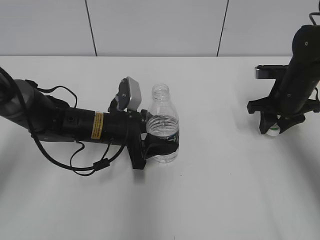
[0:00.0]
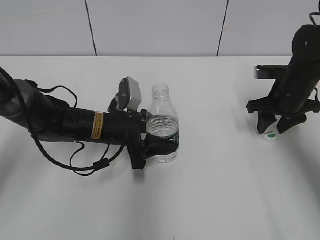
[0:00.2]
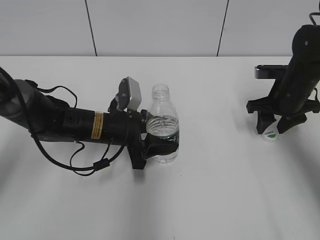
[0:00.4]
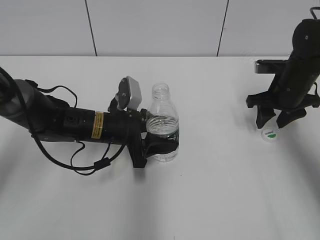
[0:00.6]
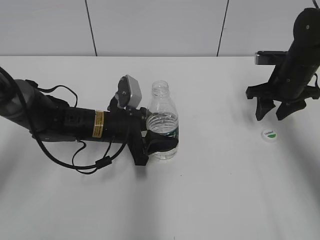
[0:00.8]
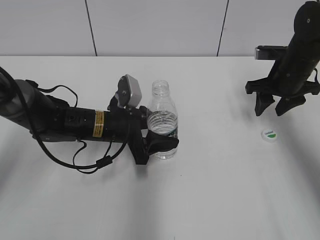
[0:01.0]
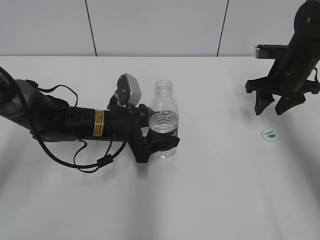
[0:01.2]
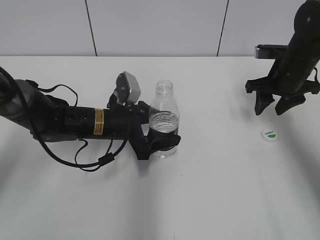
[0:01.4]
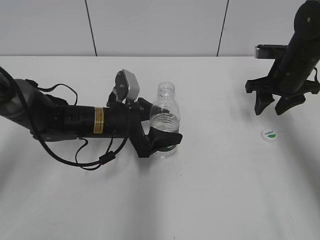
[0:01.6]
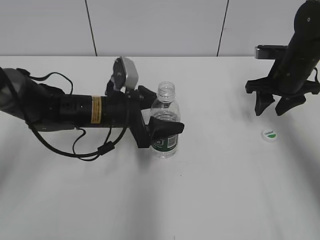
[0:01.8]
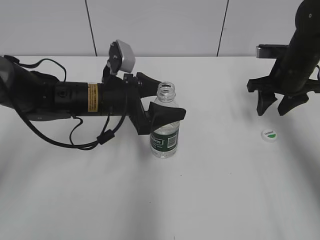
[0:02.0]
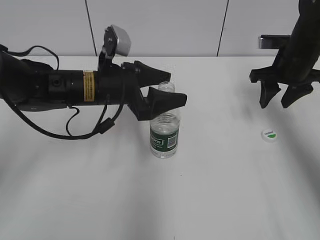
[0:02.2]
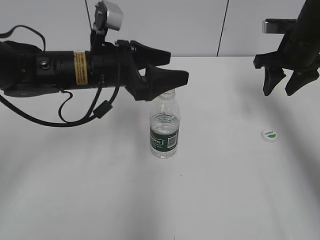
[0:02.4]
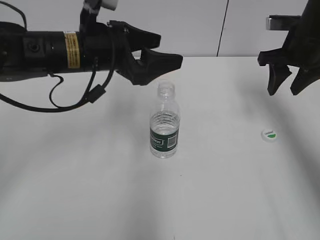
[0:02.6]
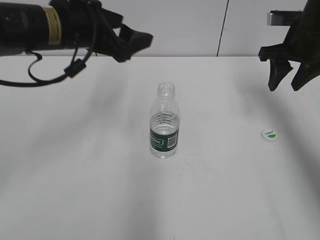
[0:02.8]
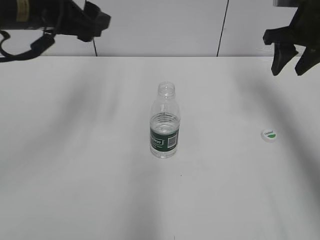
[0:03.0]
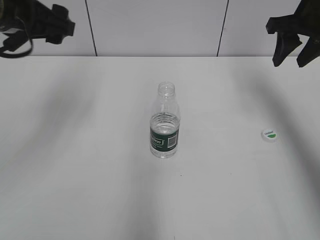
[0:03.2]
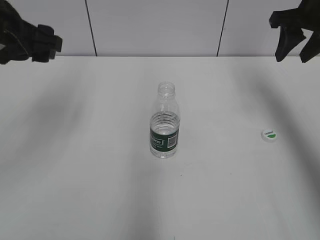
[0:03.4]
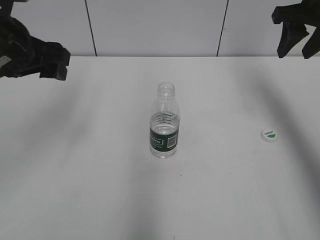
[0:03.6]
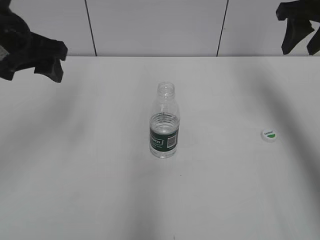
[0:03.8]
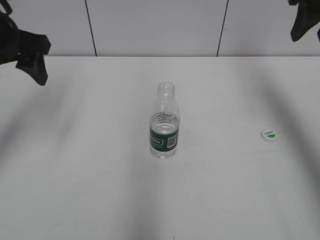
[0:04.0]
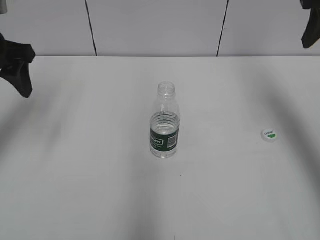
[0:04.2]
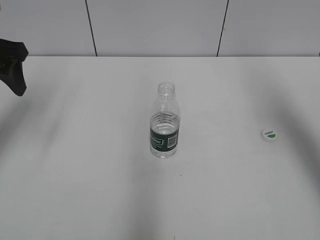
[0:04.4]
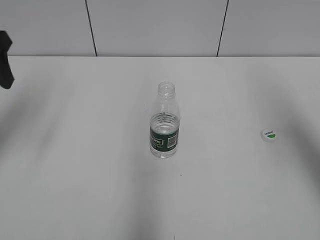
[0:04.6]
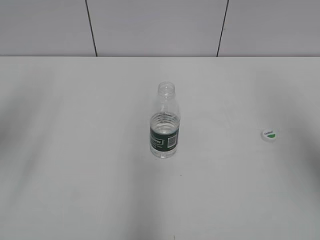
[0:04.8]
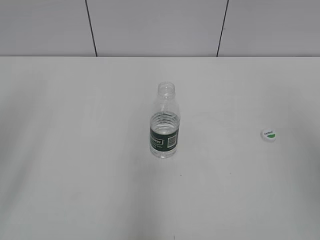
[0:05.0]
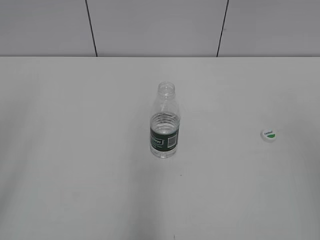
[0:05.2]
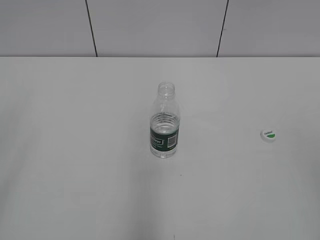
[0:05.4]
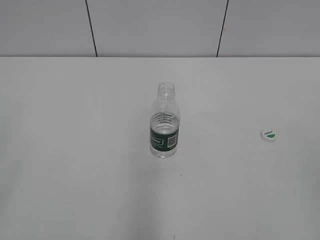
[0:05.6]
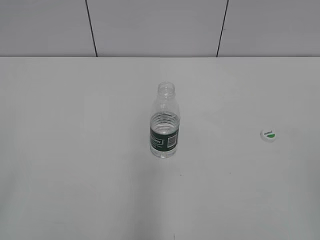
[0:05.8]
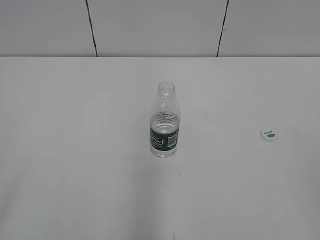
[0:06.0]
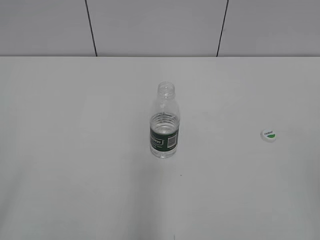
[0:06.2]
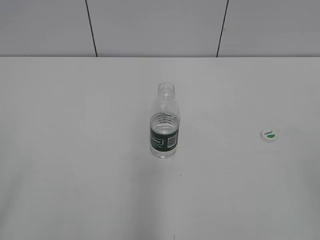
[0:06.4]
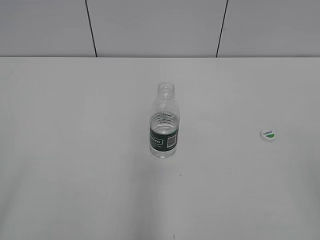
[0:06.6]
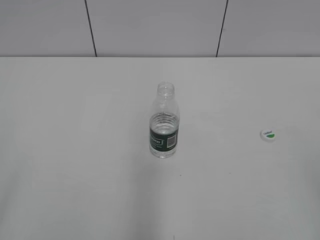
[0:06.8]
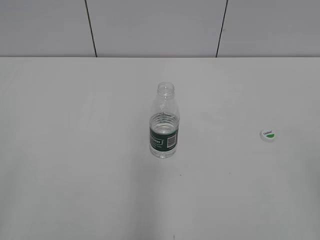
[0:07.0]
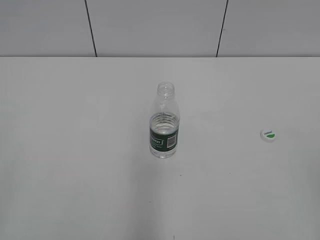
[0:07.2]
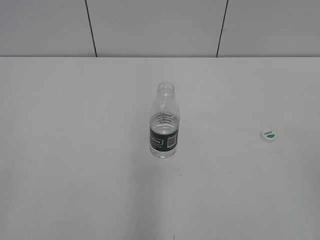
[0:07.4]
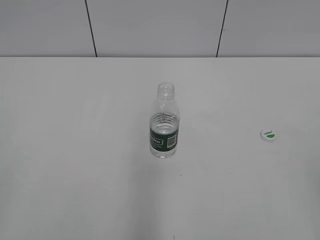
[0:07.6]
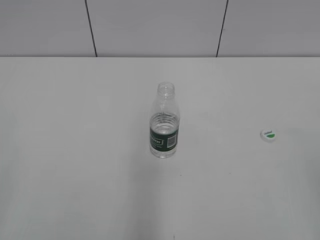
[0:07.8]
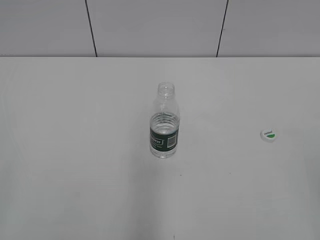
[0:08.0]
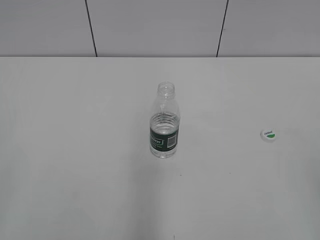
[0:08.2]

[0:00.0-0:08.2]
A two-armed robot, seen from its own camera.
Step, 0:00.8 to 0:02.4: Place the bottle on the table with the left gripper.
0:00.0 to 0:01.6: The right gripper opens, while the left gripper opens up.
0:01.6 to 0:03.2: The left gripper goes approximately 25 cm upward and to the left. The right gripper goes about 15 cm upward.
0:03.2 to 0:05.0: The right gripper moves backward, some 30 cm. Meanwhile the left gripper is displaced backward and to the left by roughly 15 cm.

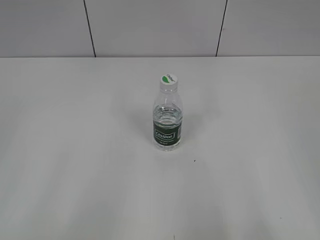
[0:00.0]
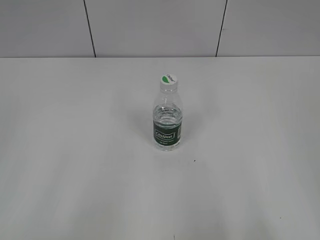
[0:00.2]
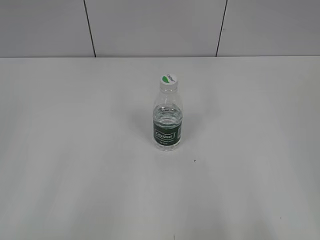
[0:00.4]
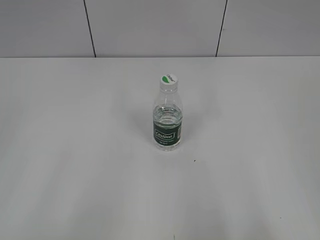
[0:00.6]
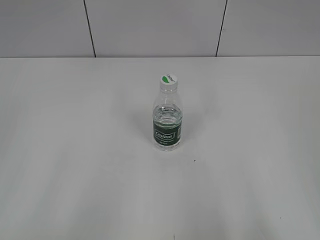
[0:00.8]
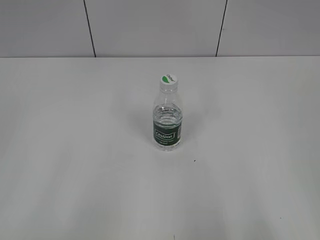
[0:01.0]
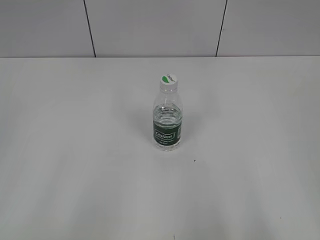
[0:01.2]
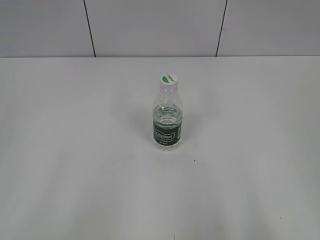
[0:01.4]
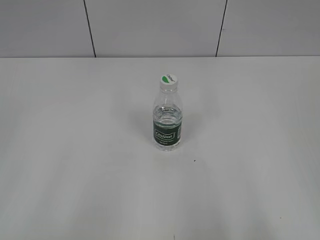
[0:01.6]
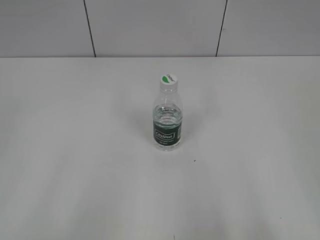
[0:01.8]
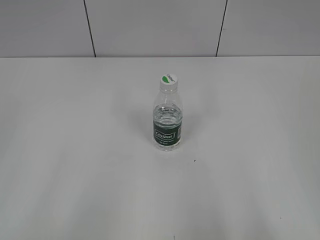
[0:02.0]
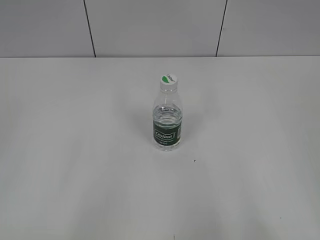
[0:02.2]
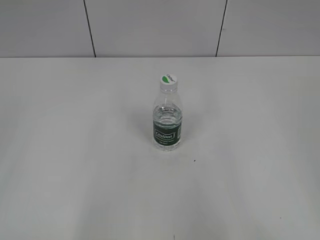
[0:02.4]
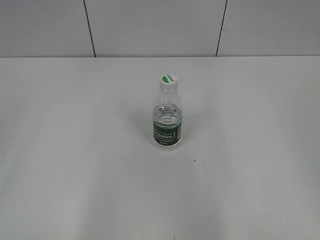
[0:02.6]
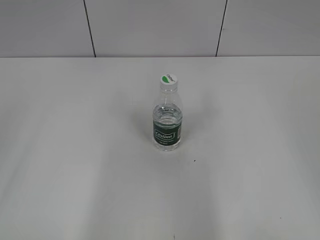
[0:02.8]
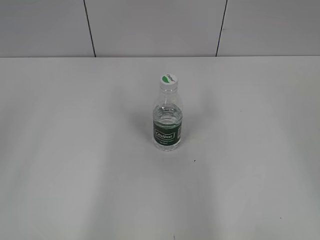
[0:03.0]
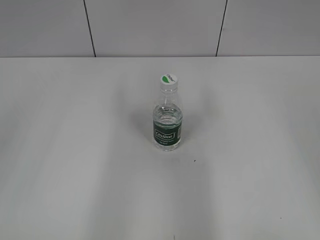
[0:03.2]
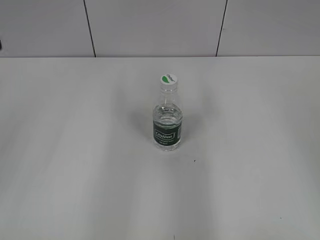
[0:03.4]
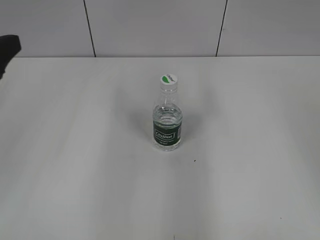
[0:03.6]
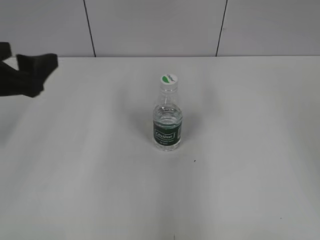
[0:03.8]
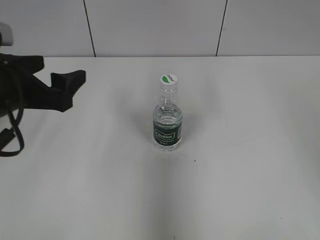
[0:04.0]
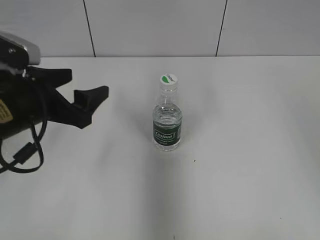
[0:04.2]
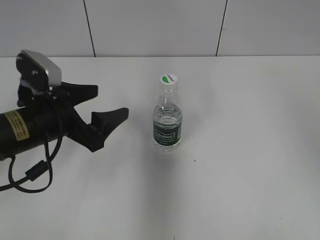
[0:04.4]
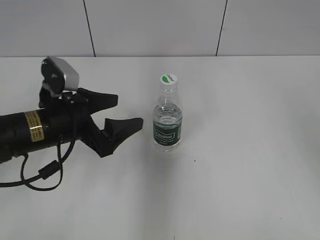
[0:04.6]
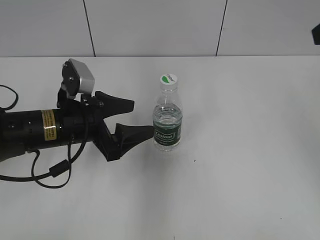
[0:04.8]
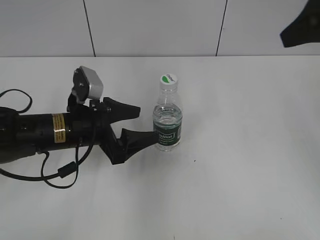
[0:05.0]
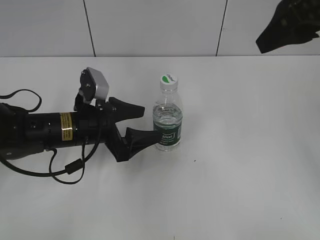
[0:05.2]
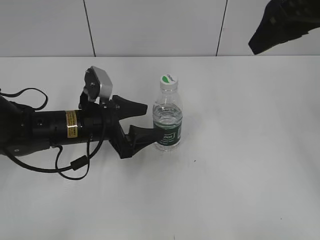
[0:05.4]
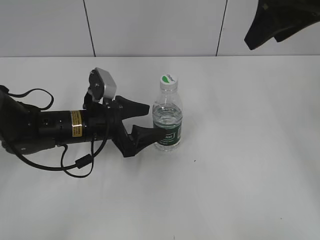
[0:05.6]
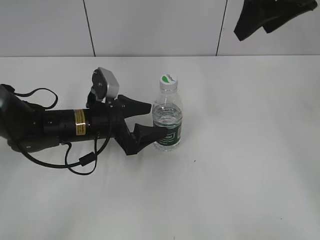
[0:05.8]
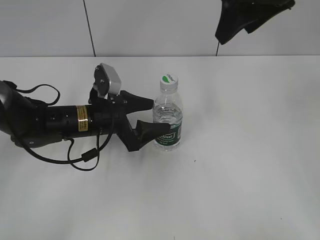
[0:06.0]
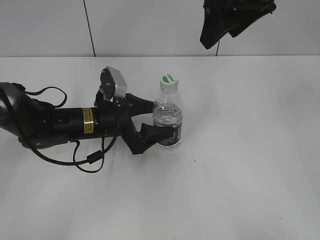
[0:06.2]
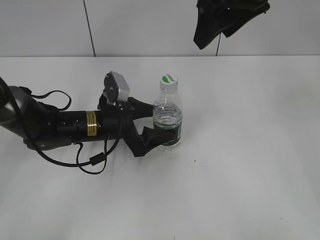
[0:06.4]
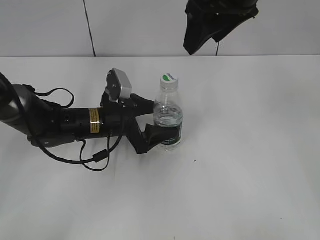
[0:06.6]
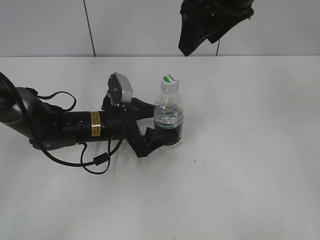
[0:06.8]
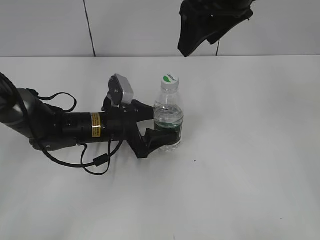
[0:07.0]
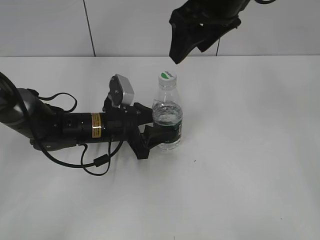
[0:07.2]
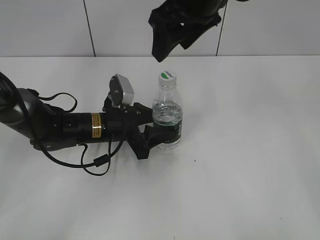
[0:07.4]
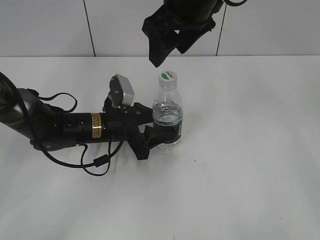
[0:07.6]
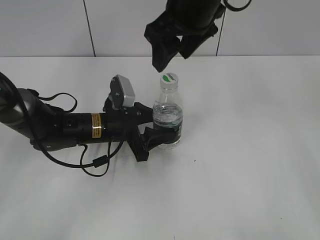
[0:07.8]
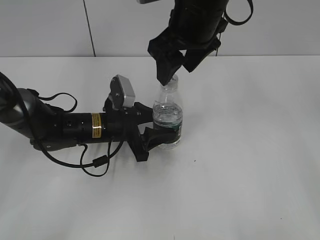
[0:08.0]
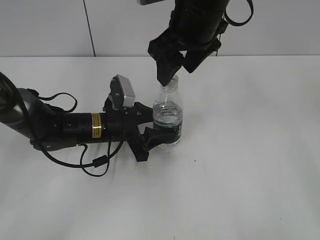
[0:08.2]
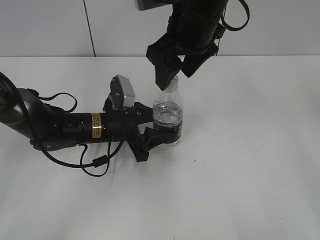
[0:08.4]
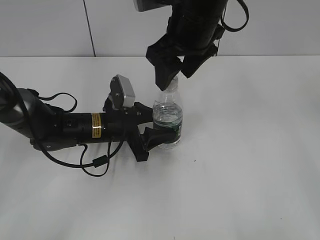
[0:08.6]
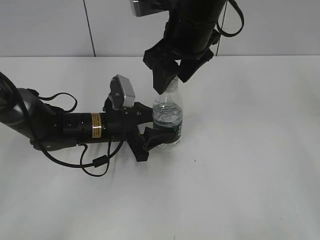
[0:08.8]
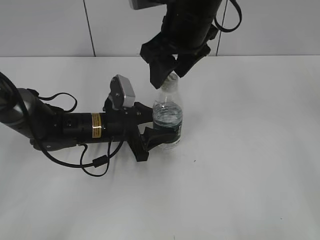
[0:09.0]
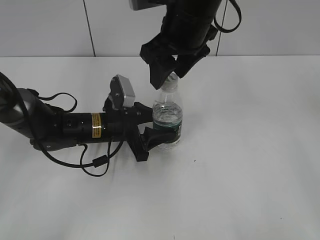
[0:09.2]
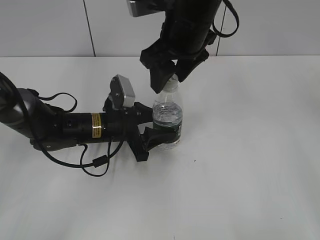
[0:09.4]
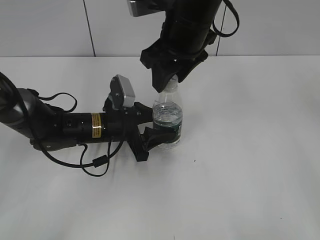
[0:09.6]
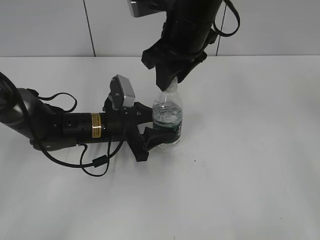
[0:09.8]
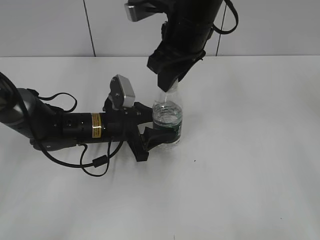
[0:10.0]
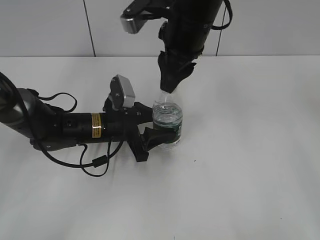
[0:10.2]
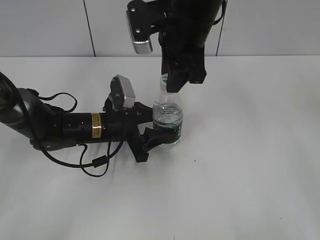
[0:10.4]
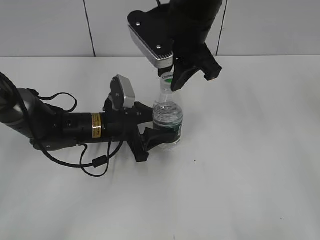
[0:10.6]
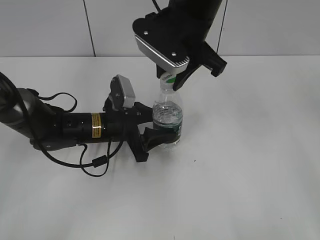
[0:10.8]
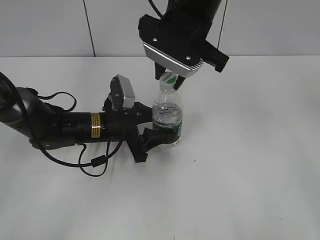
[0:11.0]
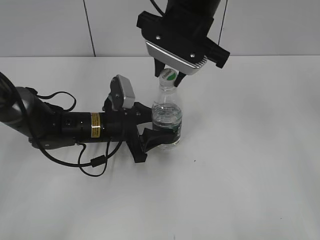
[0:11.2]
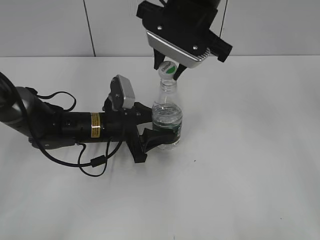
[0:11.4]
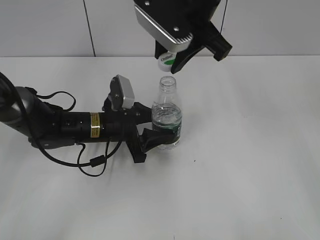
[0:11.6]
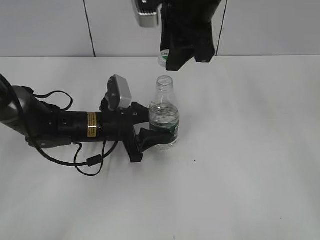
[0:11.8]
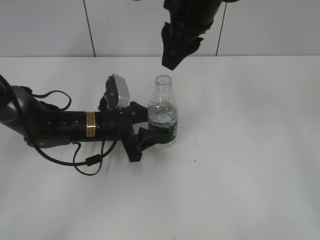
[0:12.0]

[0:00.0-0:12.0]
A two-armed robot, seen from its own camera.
Step, 0:00.0 to 0:07.0: Grasp the bottle and move it to the center of the table with the left gripper.
Step, 0:07.2 to 0:11.4: Unscrew the bottle cap with the right gripper while holding the bottle with the left gripper.
0:03.0 to 0:04.4: The right gripper moves forward, roughly 15 cm. Meanwhile the left gripper is displaced downward, forward and to the right by approximately 25 cm.
0:04.4 to 0:06.0: The right gripper moves to the left and forward, some 20 cm. Meanwhile the left gripper heads forward, downward and to the right, covering about 10 cm.
0:06.0 to 0:07.6: The right gripper travels to the left by approximately 10 cm; the left gripper closes.
0:07.6 to 0:09.0: The grippers make only small movements.
0:09.0 to 0:10.4: The right gripper closes its fingers.

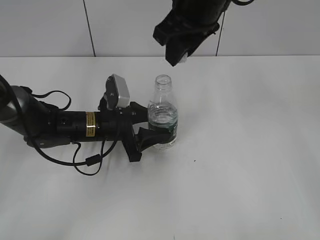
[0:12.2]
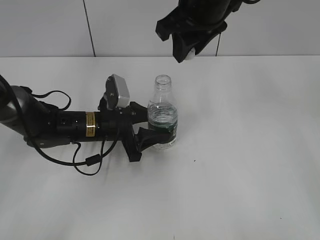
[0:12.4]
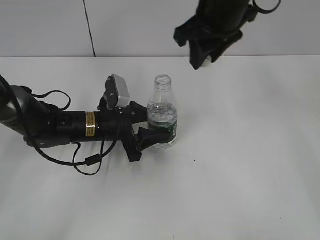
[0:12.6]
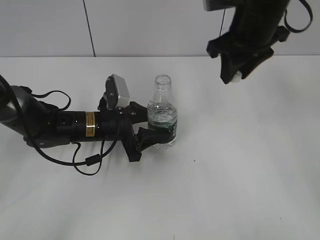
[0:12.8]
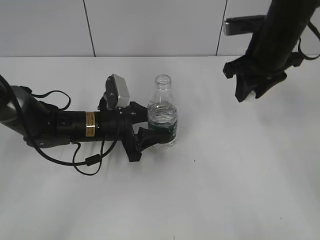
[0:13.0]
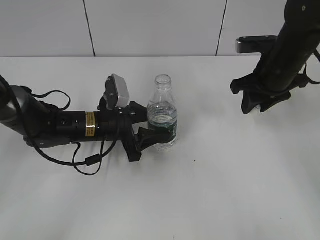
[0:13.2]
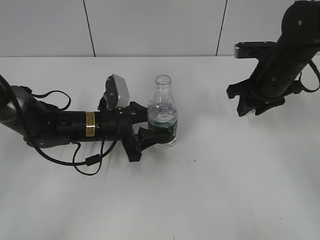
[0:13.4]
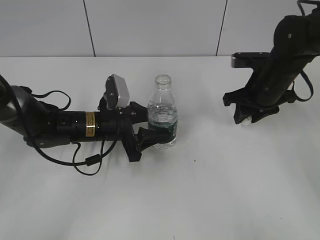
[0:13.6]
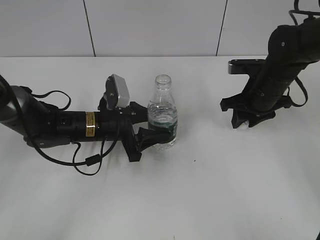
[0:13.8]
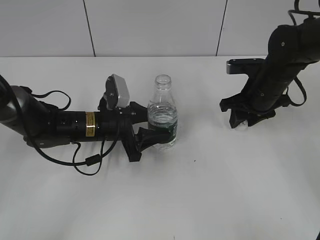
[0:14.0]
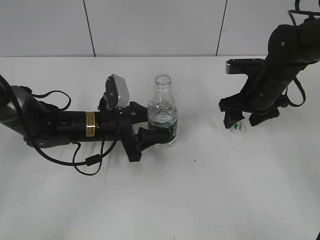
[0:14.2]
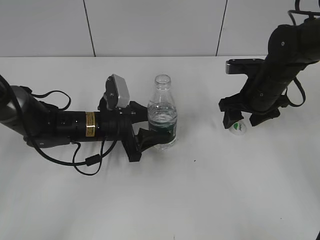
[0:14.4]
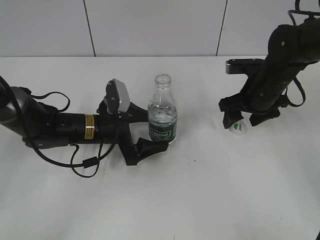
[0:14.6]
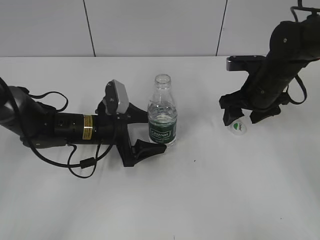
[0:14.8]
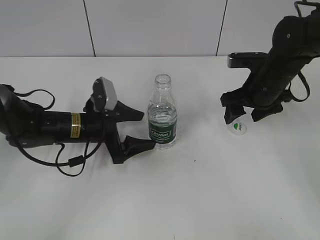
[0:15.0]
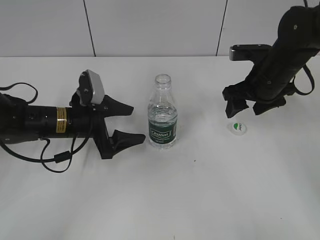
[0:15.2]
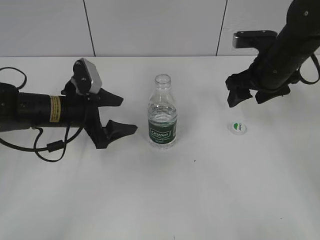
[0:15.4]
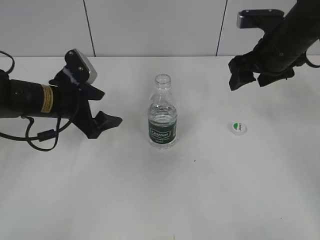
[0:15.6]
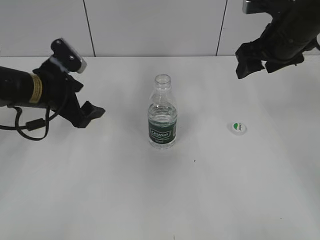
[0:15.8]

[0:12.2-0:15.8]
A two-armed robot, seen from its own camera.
Step, 0:12.2 to 0:14.2: Place the bottle cap on the table with the right gripper.
Step, 0:14.6 to 0:15.0: Place the bottle on the table with the left gripper.
0:12.2 to 0:14.0: The right gripper shifts some 25 cm downward and to the right.
0:14.0 to 0:15.8: The right gripper travels upward by roughly 10 cm, and opens its fingers. The left gripper heads to the left and upward, covering about 15 cm, and opens up.
